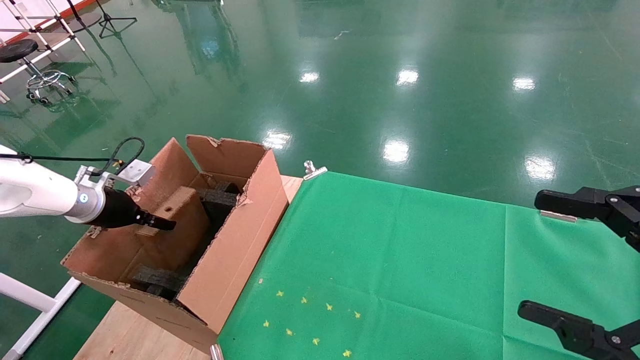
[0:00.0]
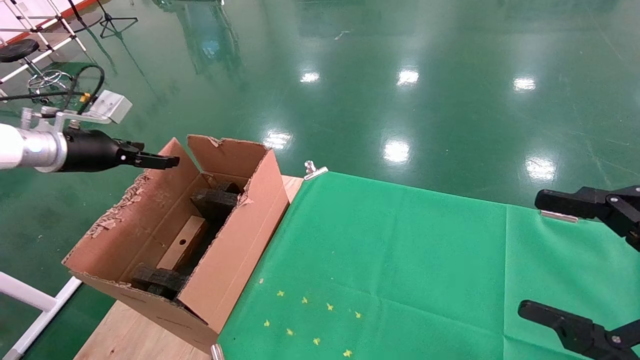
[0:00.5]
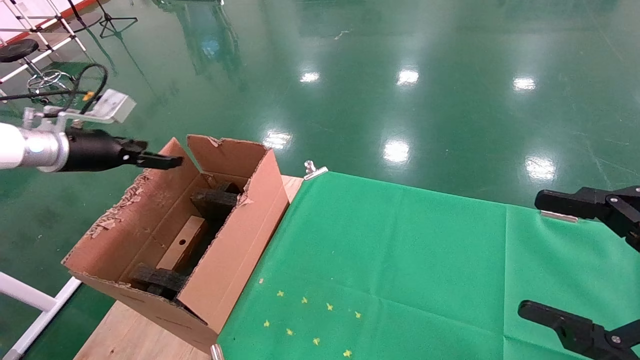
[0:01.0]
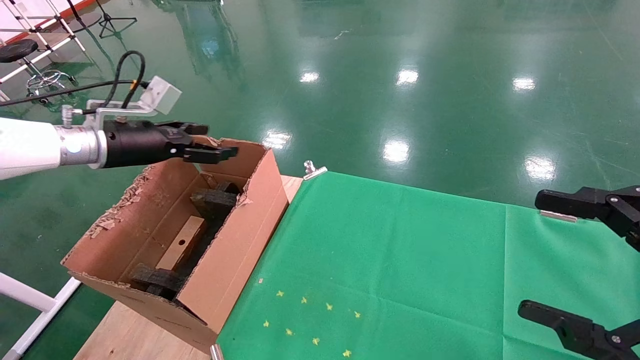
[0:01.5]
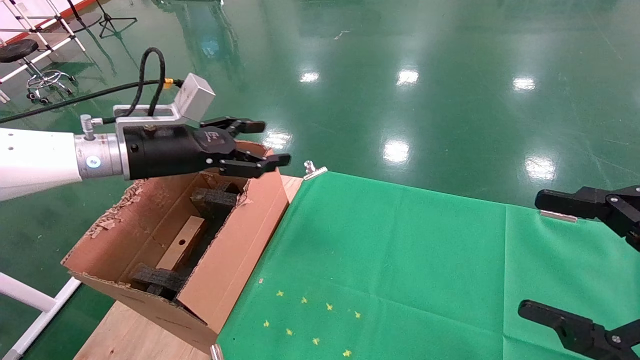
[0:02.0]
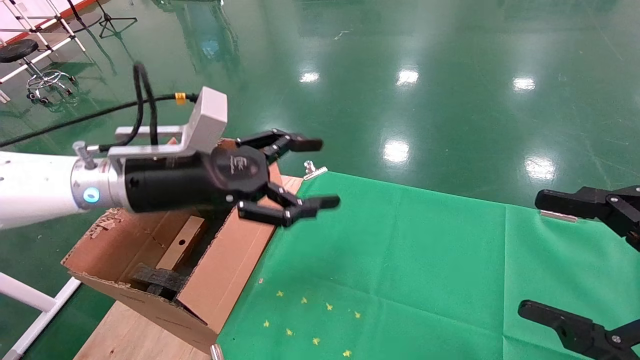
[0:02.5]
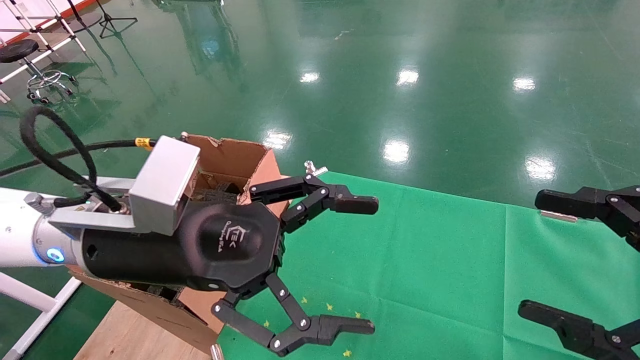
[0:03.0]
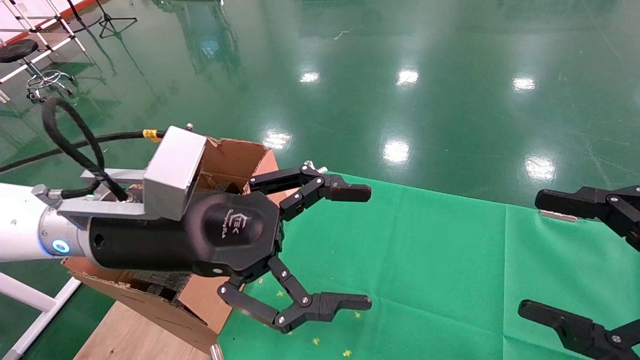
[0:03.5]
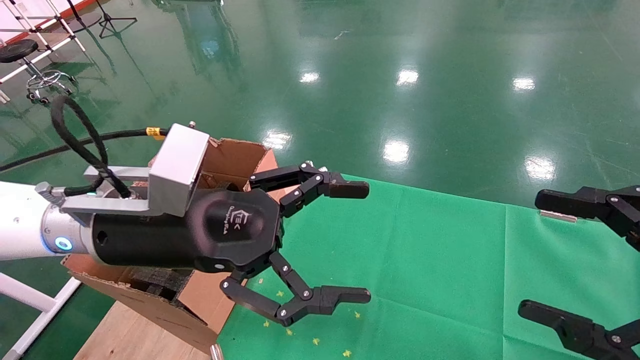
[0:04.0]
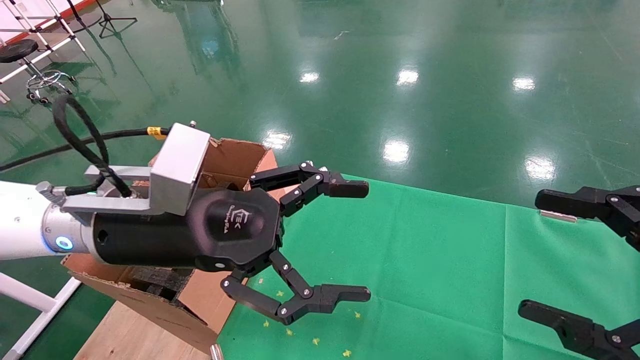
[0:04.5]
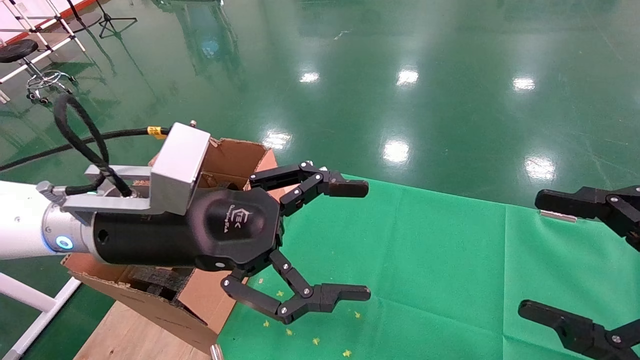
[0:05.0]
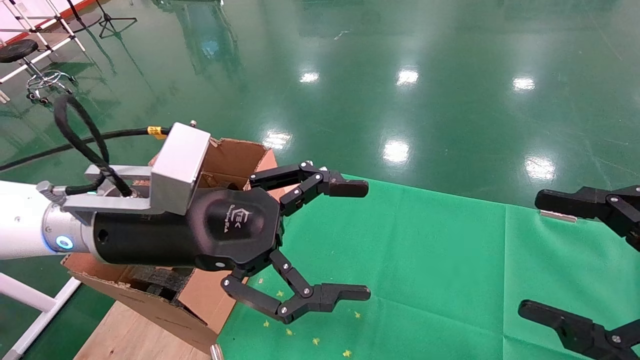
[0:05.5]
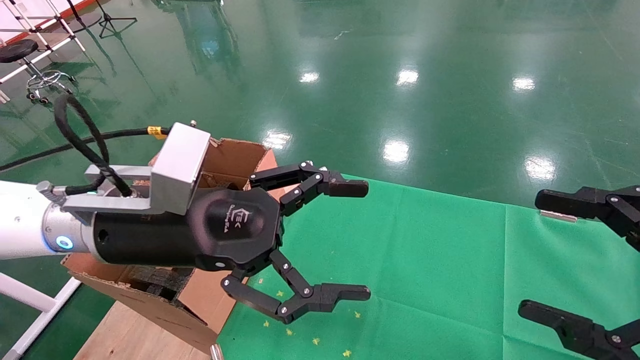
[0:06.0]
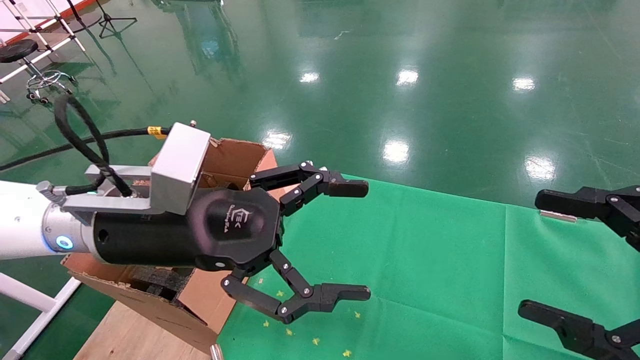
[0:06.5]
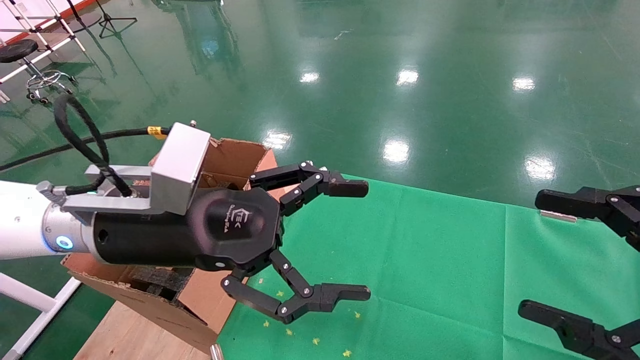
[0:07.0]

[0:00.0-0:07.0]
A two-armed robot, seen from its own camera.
Task of the whole recording: using a robotic arm to pick up a cardboard box and palace it the carton.
0:00.0 to 0:02.0: The left gripper goes approximately 20 cm to the right and upward, and opens its fingers.
0:02.0 to 0:03.5: The left gripper goes roughly 15 cm backward and to the right.
0:03.5 to 0:07.0: Both grippers stay put.
